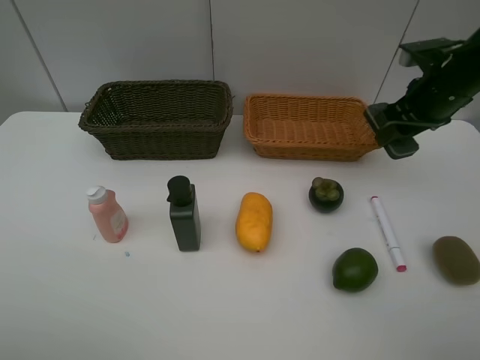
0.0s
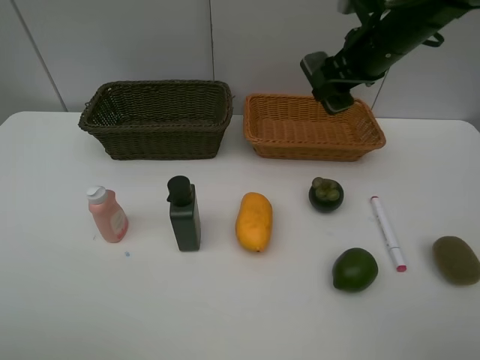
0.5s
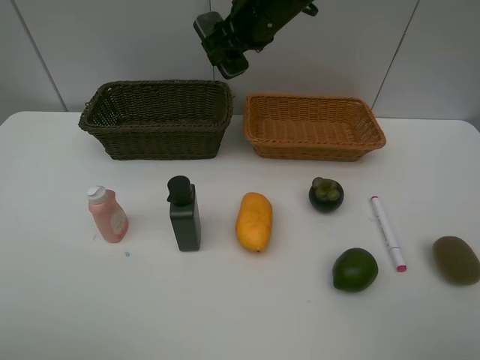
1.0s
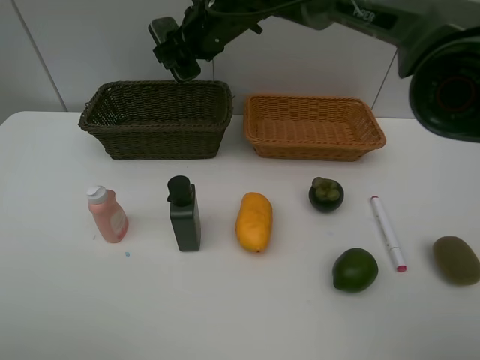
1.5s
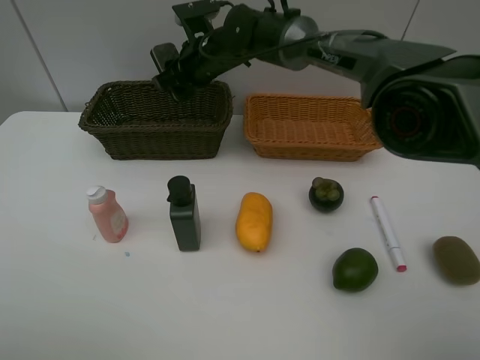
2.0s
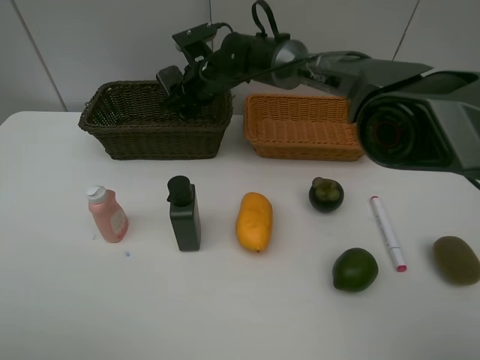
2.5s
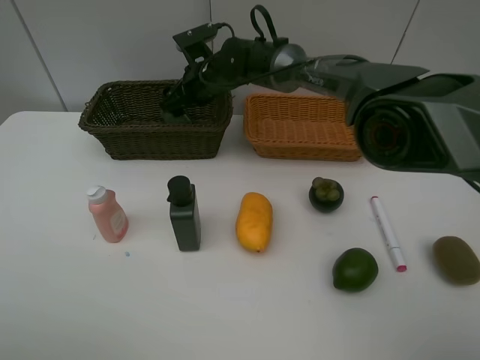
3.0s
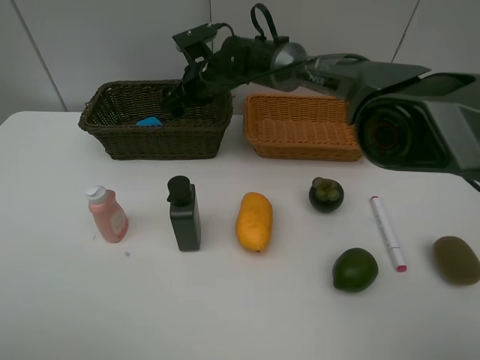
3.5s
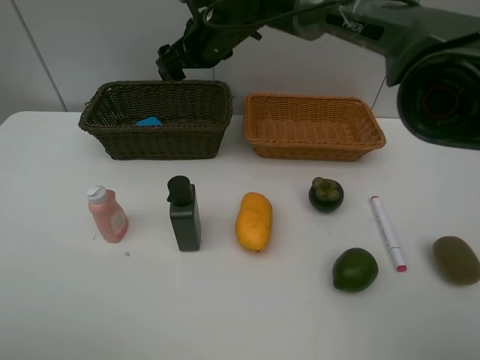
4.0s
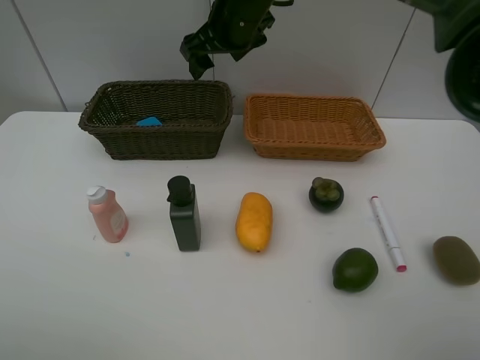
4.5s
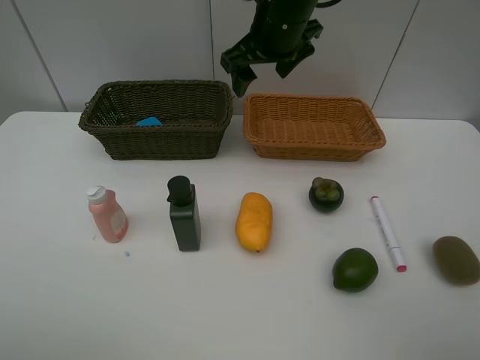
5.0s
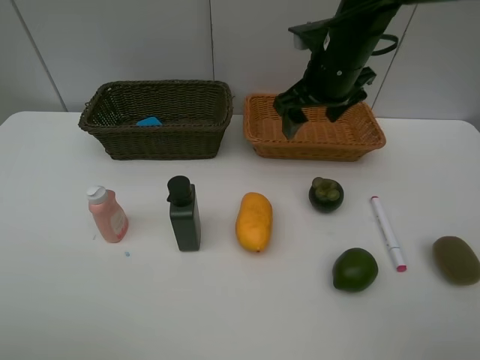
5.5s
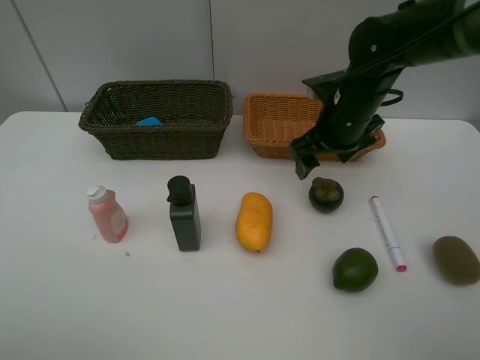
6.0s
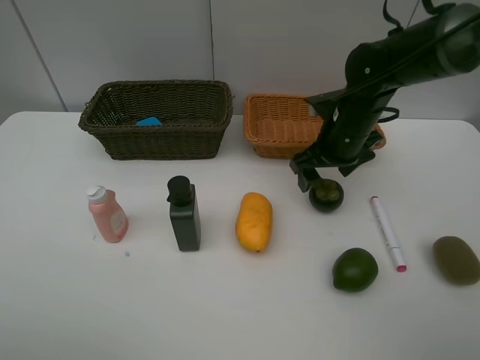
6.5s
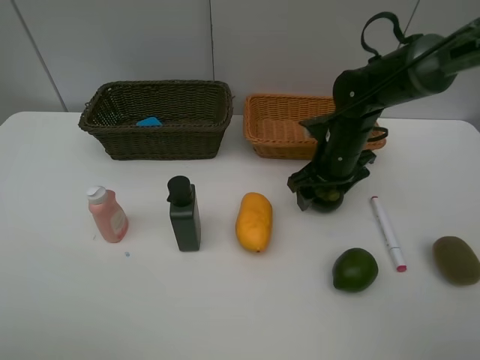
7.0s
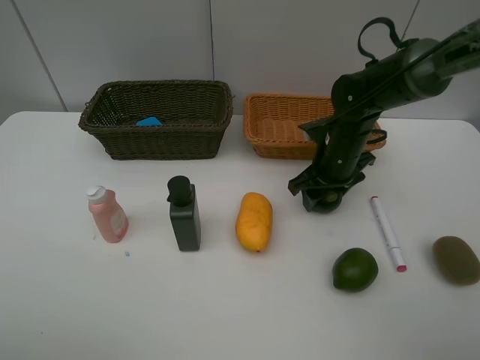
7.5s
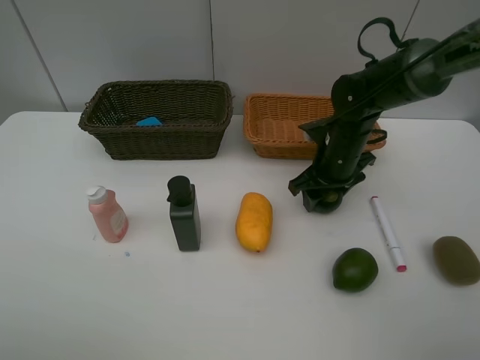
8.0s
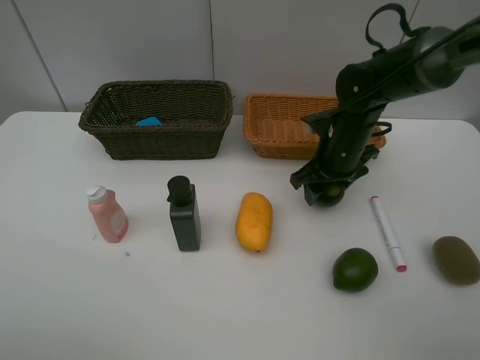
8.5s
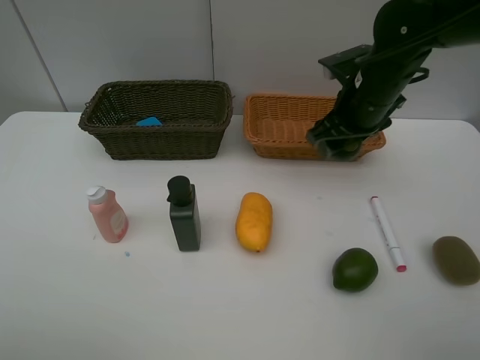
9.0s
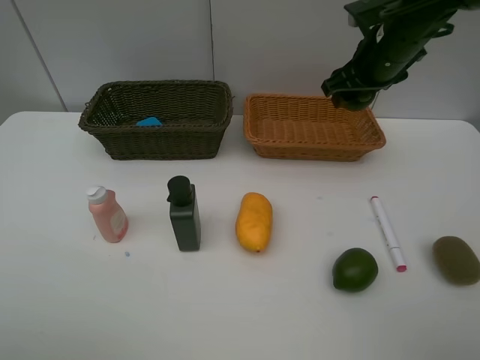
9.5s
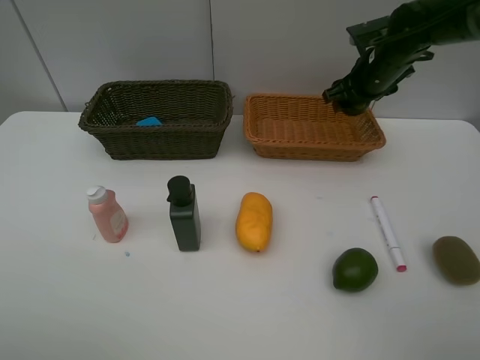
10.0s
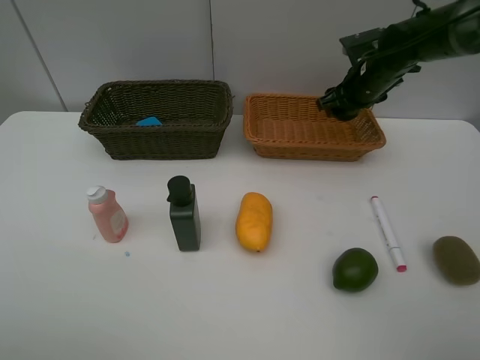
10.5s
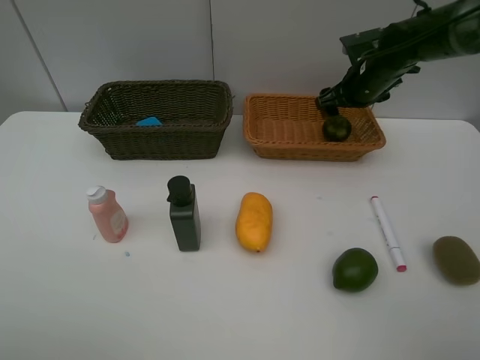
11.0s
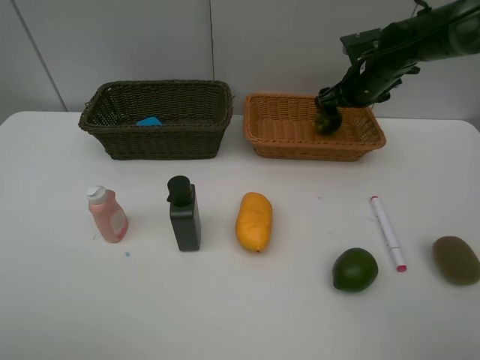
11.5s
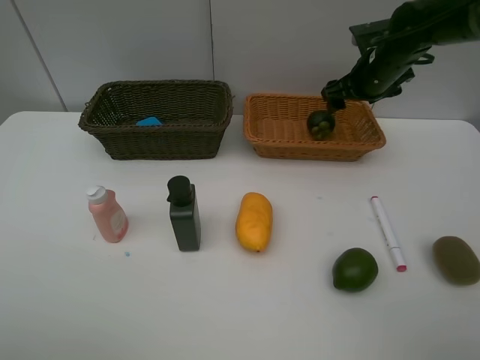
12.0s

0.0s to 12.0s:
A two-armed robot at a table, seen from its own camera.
Task of the whole recording: Place multiple objects separately in different baskets.
Step, 0.0s to 3.5s: Place the blackboard eraser in the dark basket with right gripper.
Step, 4.0s to 8.5s: Pick up the mangosteen with right gripper.
Step, 9.0s to 11.5s: Place the mangosteen in the light basket with right gripper.
0.0s to 2.0s: The right gripper goes roughly 30 cm to the left.
2.0s to 4.0s: The right gripper travels upward by roughly 5 cm, and opens up.
4.0s to 6.0s: The right gripper goes some 20 cm to the right and backward.
6.0s to 8.0s: The right gripper shifts some 5 cm downward.
8.0s to 10.0s: The right gripper moves forward, upward and to the right, approximately 15 cm.
10.0s to 12.0s: The grippers move only a little.

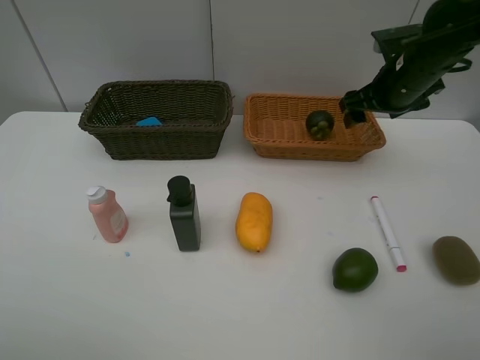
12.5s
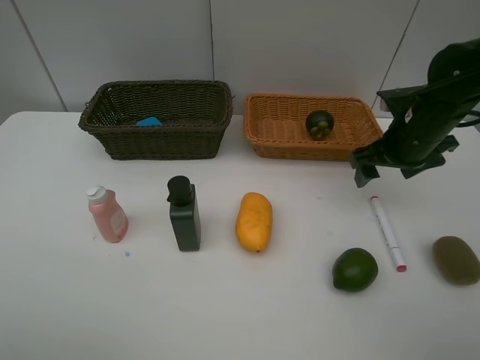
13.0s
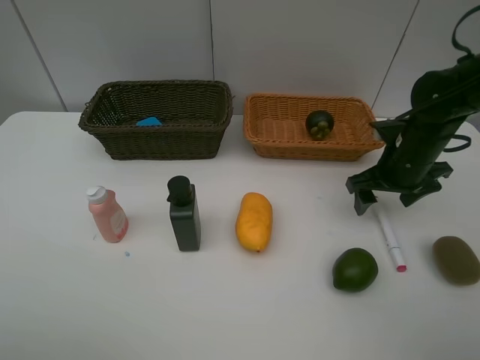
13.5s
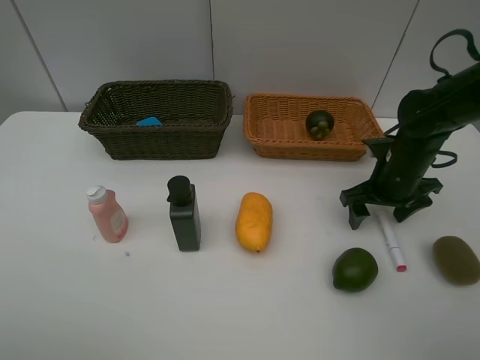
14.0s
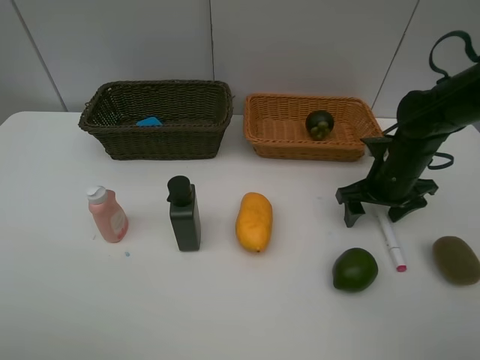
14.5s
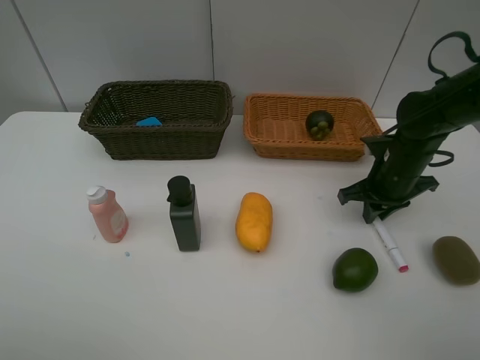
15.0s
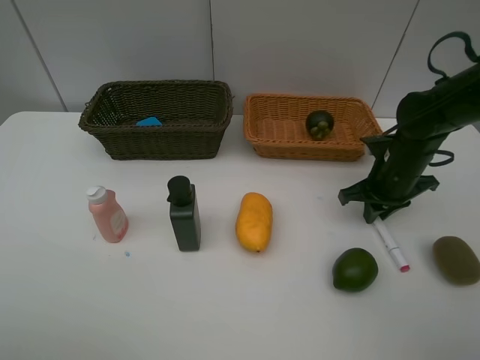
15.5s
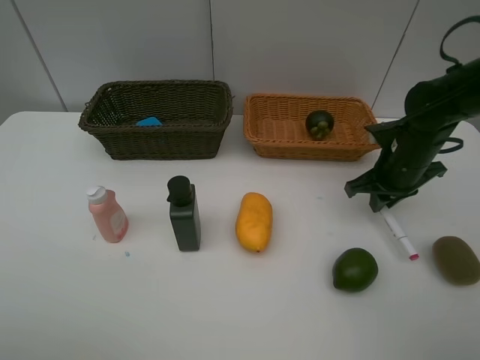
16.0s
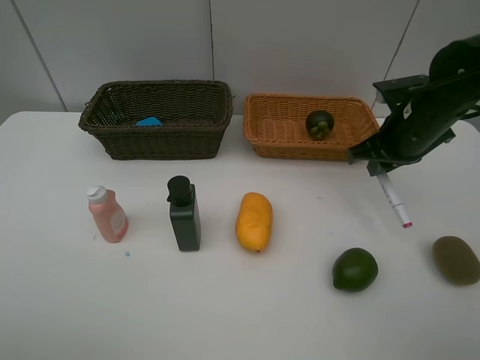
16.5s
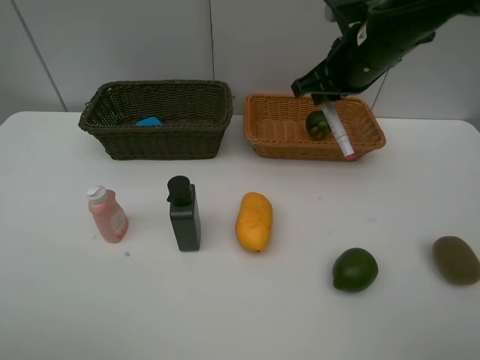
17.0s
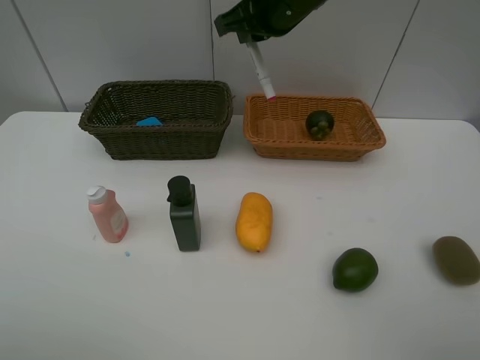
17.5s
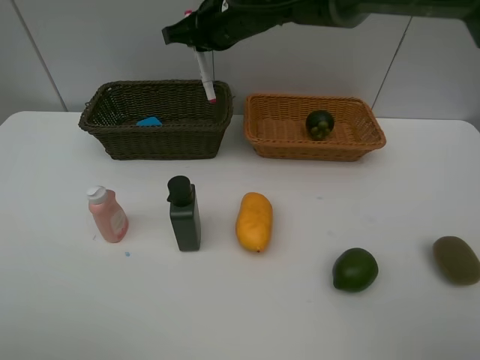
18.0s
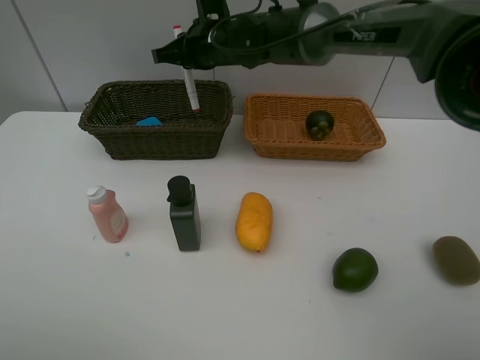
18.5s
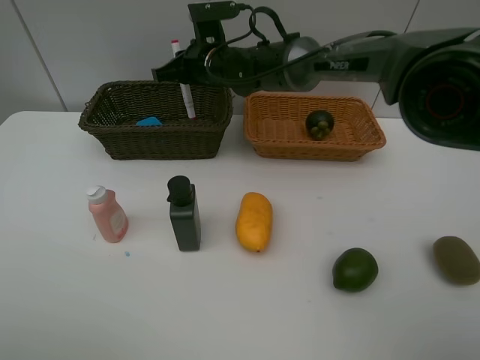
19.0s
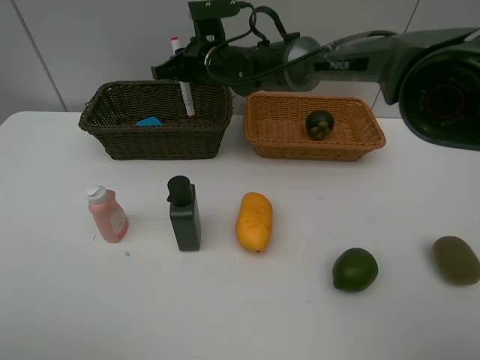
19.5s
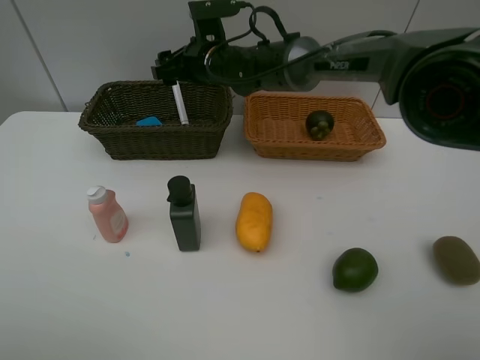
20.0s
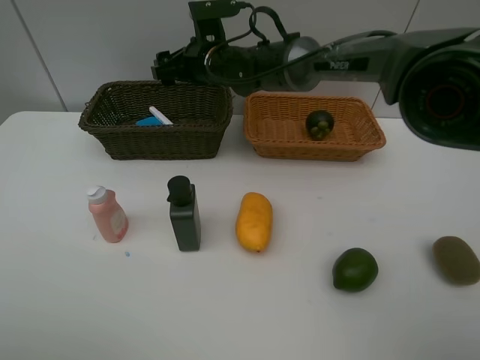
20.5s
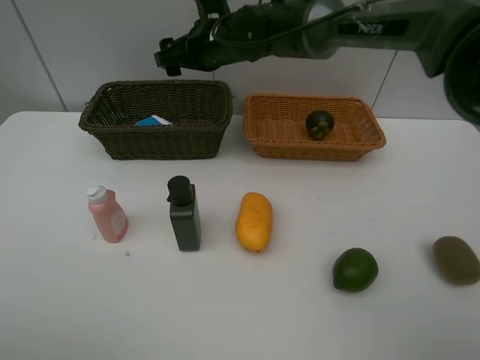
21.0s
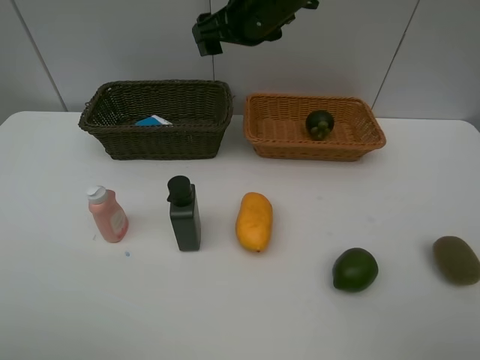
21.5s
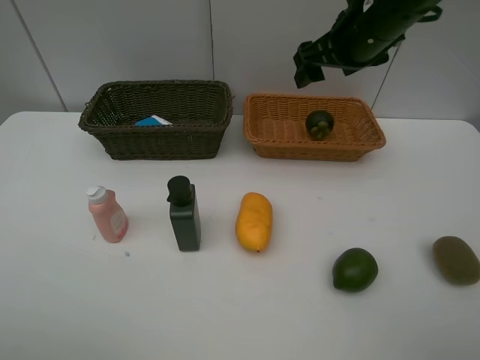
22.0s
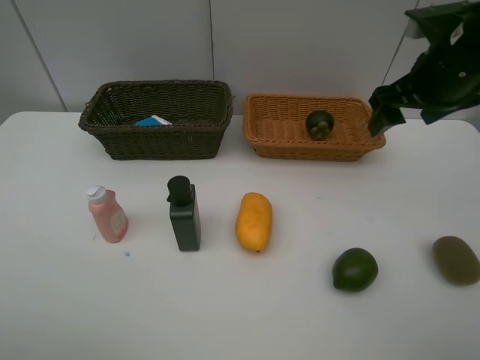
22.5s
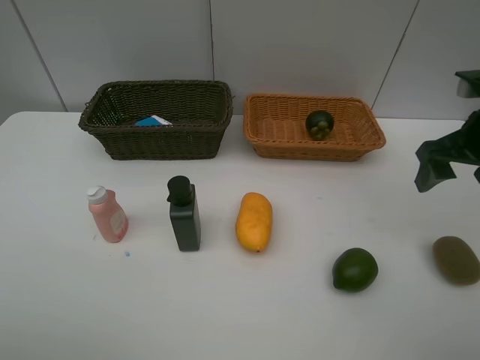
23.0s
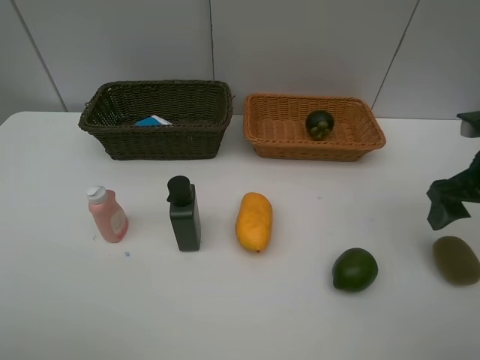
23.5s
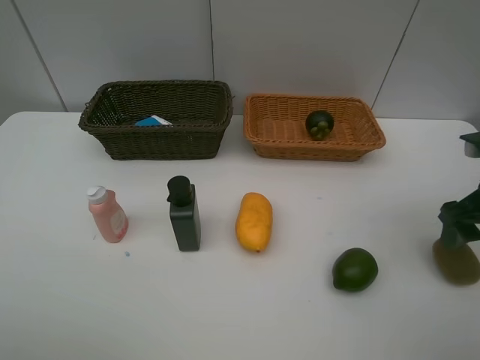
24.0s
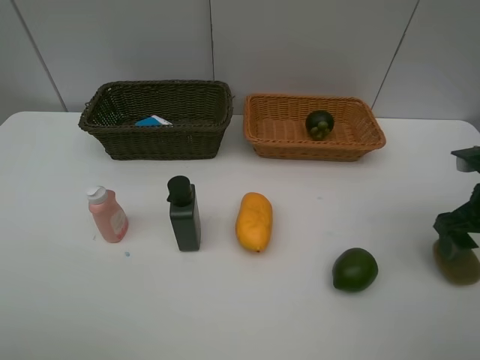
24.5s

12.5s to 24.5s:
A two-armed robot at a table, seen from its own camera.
Task of the whole recording: Place multiple objects separately in different baskets.
Step, 12.5s to 16.0s: Pick up the red marker with right gripper.
Step, 16.5s to 20.0s: Place the red marker in the dark basket with right gripper.
12.5s to 14.5s: The right gripper heads downward and backward, covering approximately 15 cm.
14.5s to 16.5s: The right gripper goes approximately 10 cm upward, and closes up.
16.5s to 18.5s: The right gripper is displaced to the left and forward by about 30 cm.
18.5s to 20.5s: The right gripper opens its fingers.
20.5s to 22.5s: The right gripper heads to the right and backward, covering roughly 30 cm.
22.5s to 24.5s: The right gripper travels downward, to the right and backward by roughly 15 cm.

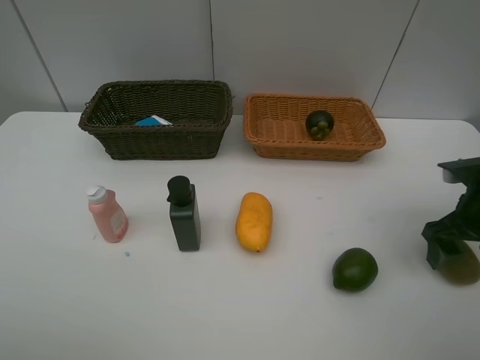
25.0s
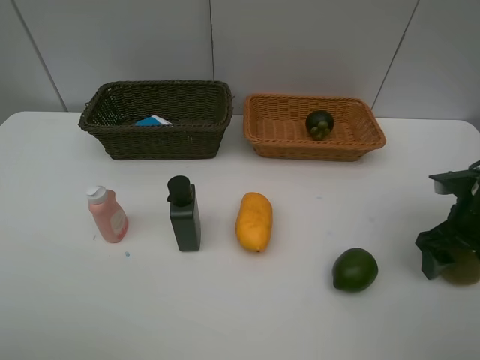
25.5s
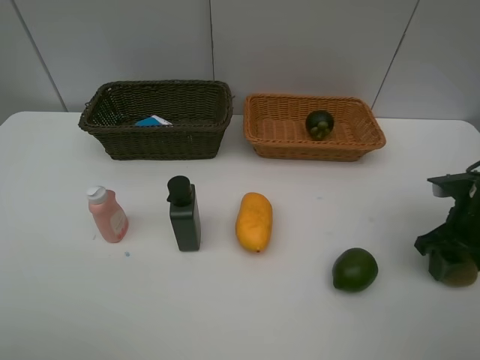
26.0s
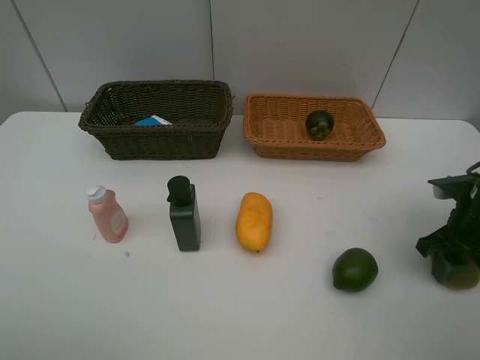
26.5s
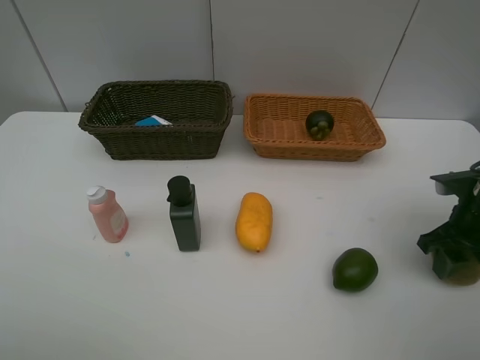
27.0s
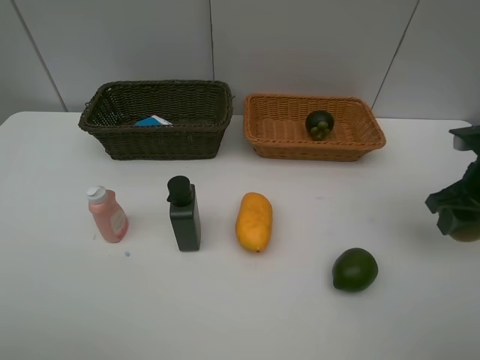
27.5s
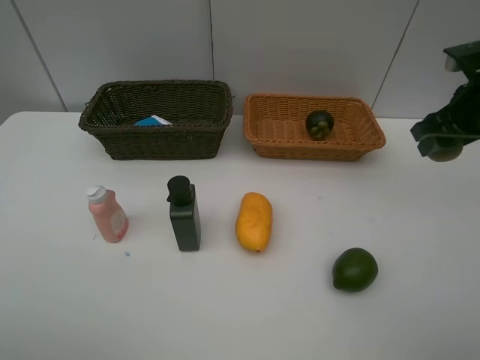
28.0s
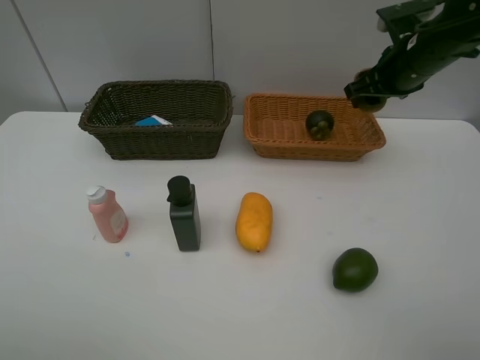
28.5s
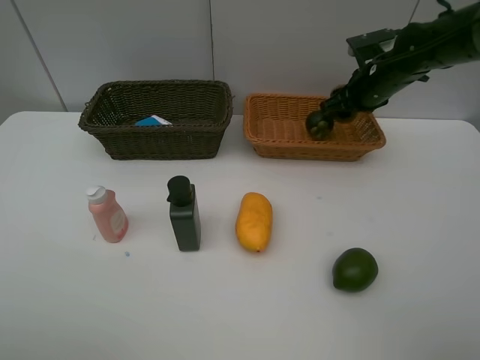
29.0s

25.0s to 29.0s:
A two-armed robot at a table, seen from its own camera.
Task of the whole recording: Place multiple objects separately in different baskets.
Step, 25.0s to 27.5s: Pick up kiwi with right gripper.
25.0s to 27.0s: The right gripper closes up.
27.0s to 29.0s: The right gripper travels forward and to the left by approximately 25 cm.
